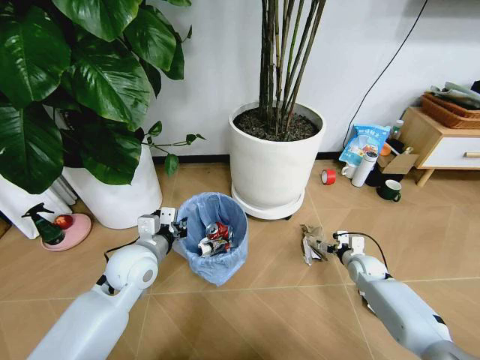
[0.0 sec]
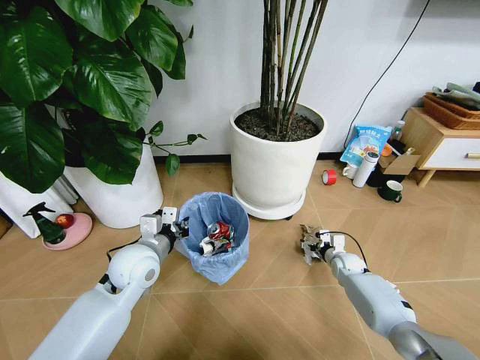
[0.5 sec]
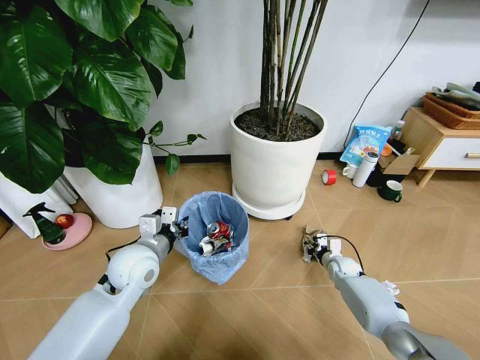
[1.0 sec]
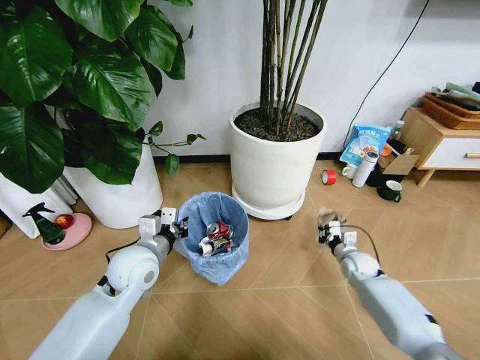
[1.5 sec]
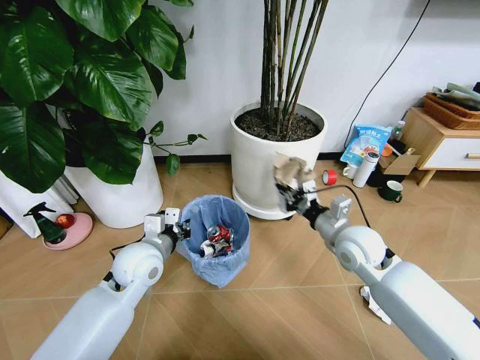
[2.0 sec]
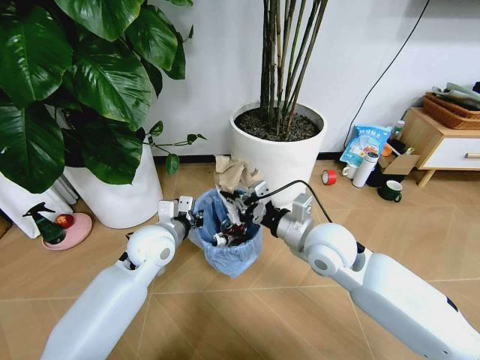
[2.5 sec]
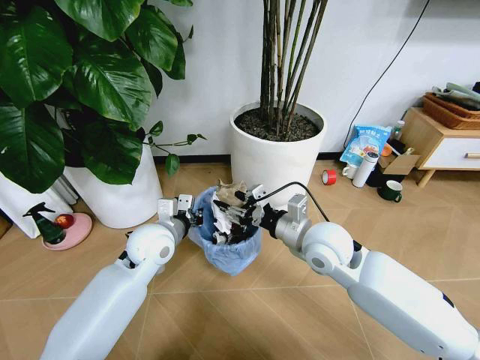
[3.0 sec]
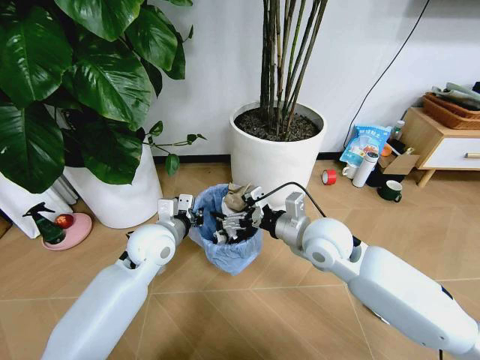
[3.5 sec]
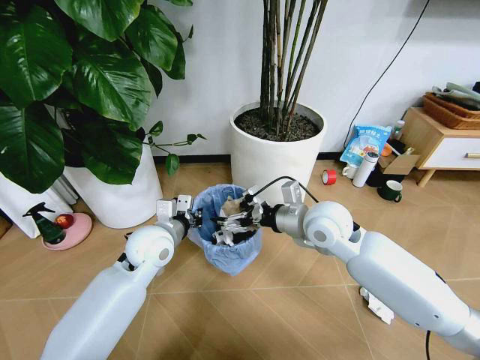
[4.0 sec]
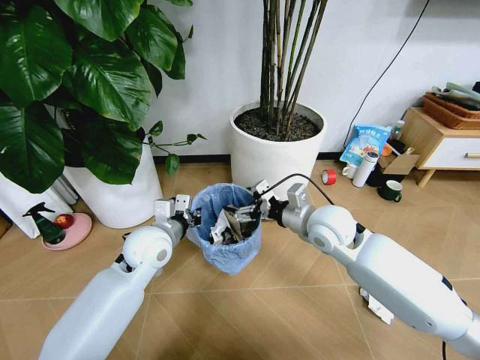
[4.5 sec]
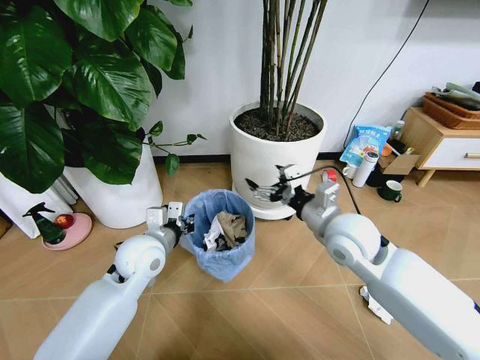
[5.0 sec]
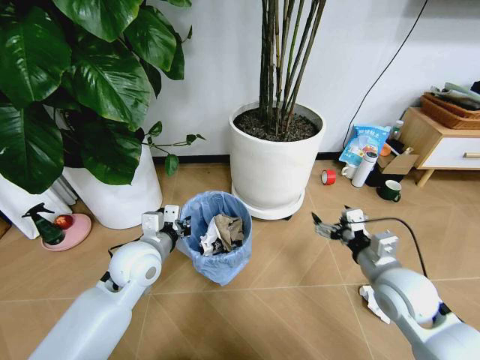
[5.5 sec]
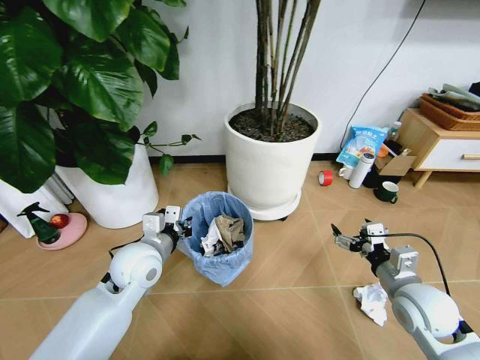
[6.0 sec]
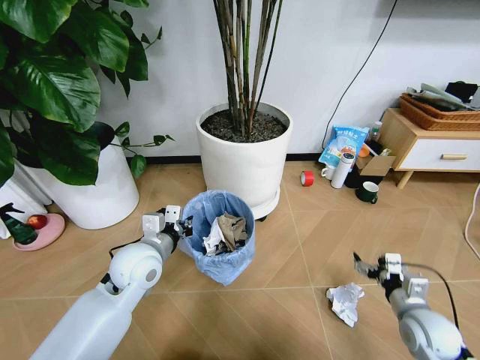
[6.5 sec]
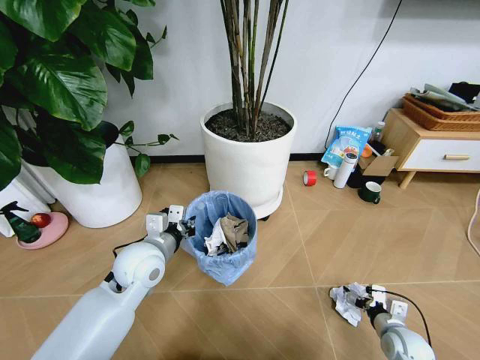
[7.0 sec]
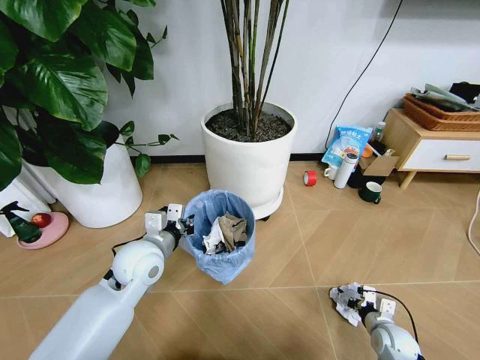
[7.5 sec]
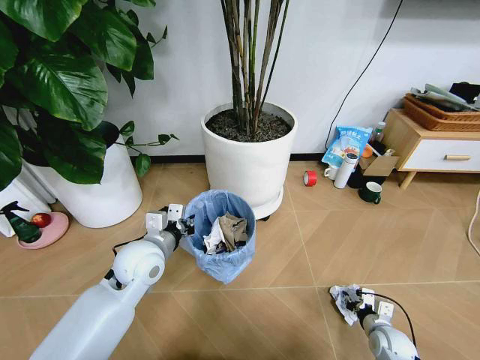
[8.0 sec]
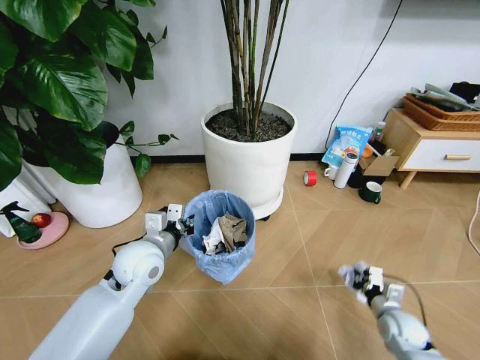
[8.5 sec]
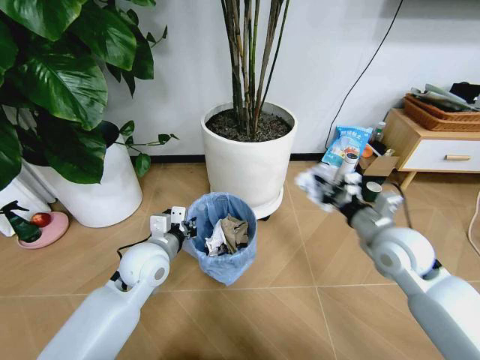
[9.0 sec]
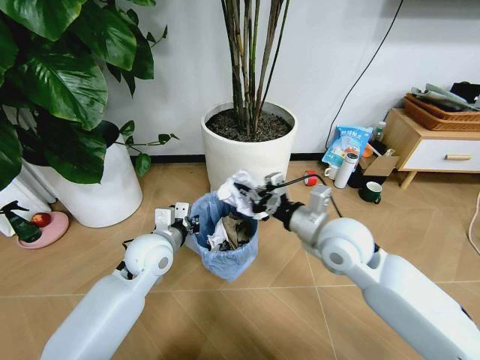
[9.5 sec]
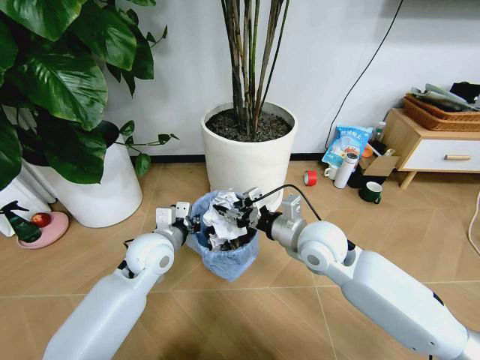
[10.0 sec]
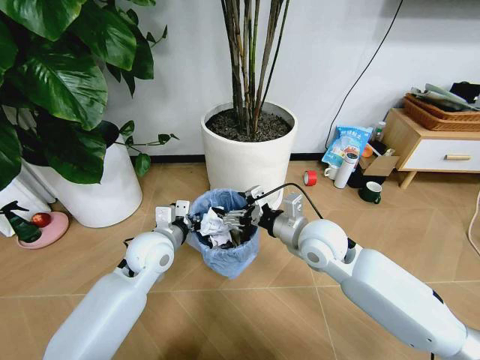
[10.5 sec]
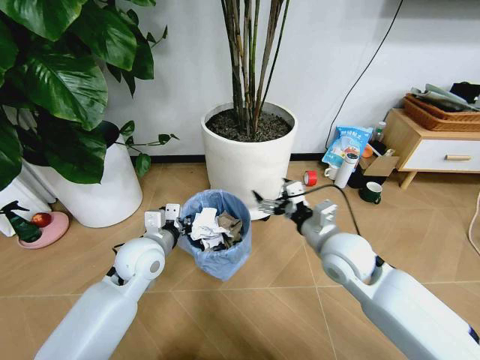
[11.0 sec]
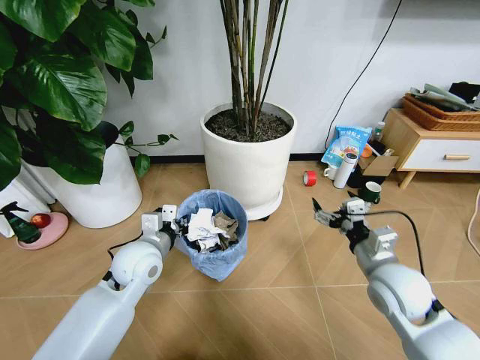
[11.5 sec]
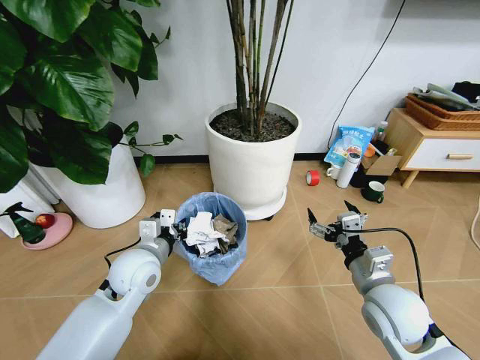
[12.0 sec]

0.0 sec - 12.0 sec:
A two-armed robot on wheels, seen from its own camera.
Task of the whole recording: Pick up the trash bin and place the garbage on the floor into it.
0.0 sec - 2.0 sec: The right gripper travels upward and to the left by approximately 25 cm, and closes its fingers.
2.0 sec - 4.0 sec: The right gripper goes roughly 10 cm to the left and upward, and opens up.
4.0 sec - 6.0 sec: The right gripper goes approximately 25 cm to the right, backward and downward.
6.0 sec - 8.0 sec: The right gripper shifts approximately 25 cm downward, and closes its fingers.
8.0 sec - 10.0 sec: The right gripper travels upward and to the left by roughly 40 cm.
10.0 sec - 12.0 sec: The right gripper travels backward and to the right by some 15 cm, and opens up.

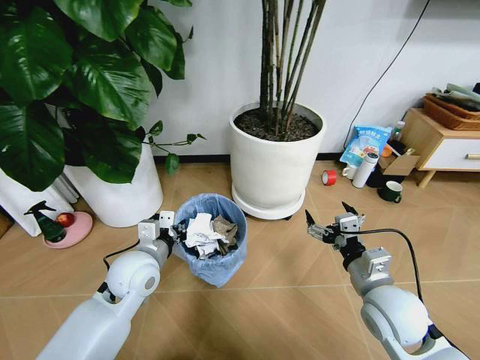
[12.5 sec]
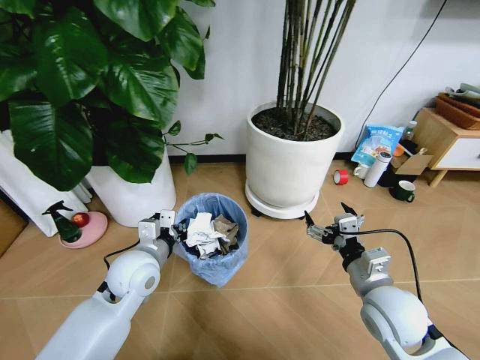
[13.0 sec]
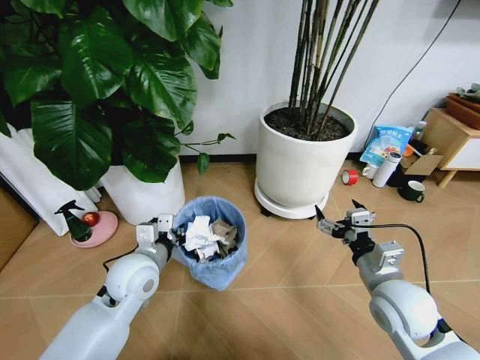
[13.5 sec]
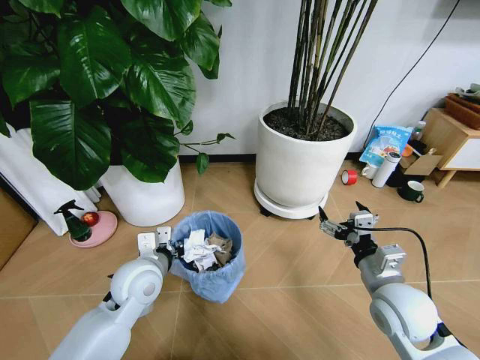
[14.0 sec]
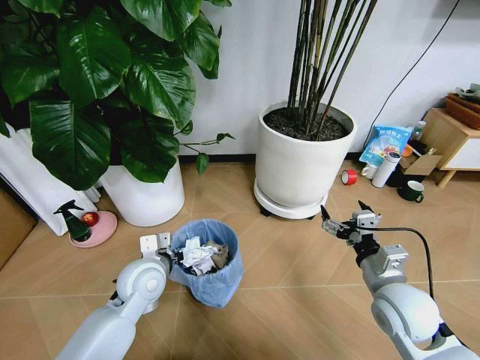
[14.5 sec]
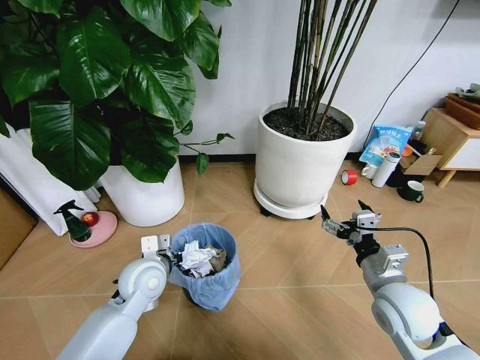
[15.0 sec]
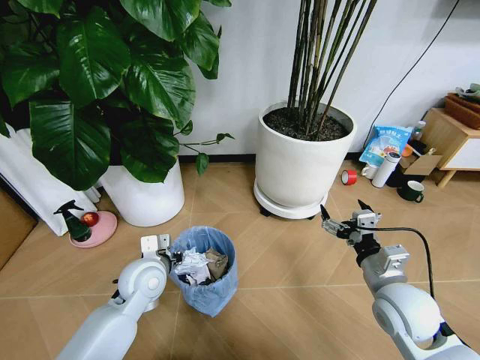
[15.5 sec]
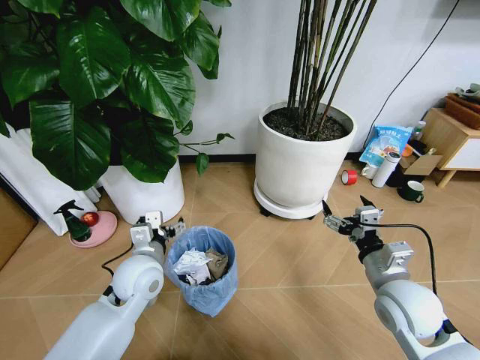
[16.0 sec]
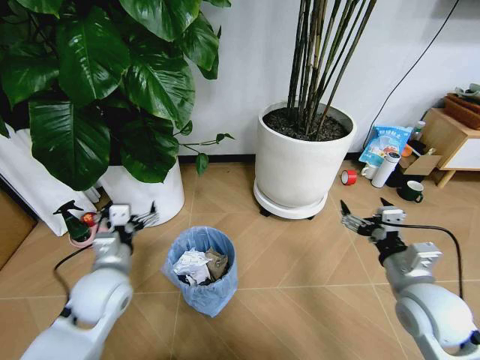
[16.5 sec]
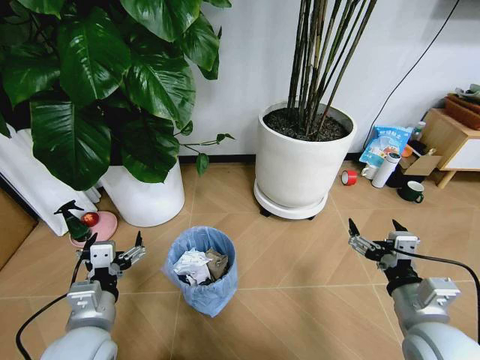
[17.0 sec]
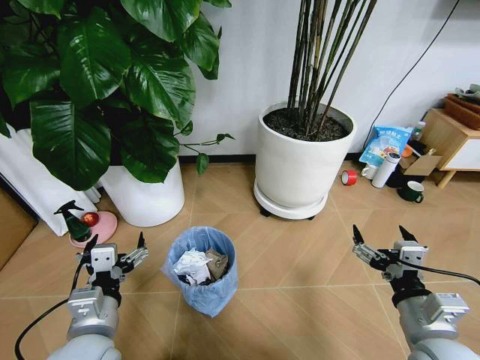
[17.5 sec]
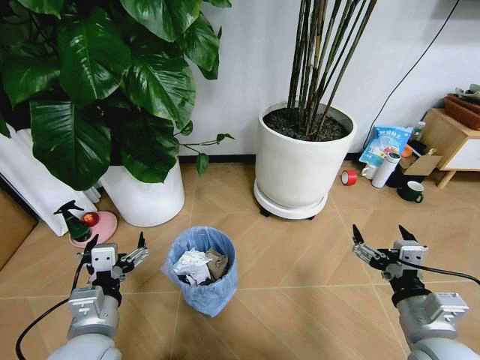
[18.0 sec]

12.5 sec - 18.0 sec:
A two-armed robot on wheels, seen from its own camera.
Task of the whole recording: Pick up the trash bin and place the garbage on the floor into it.
14.5 sec - 16.0 sec: The left gripper opens up.
16.0 sec - 18.0 sec: The left gripper heads backward, covering about 15 cm. Meanwhile the right gripper shifts some 10 cm backward.

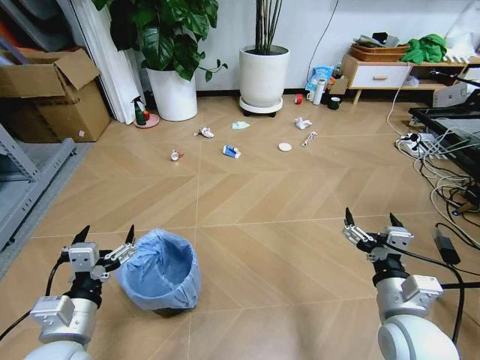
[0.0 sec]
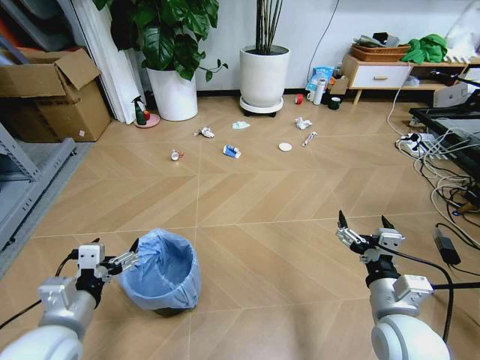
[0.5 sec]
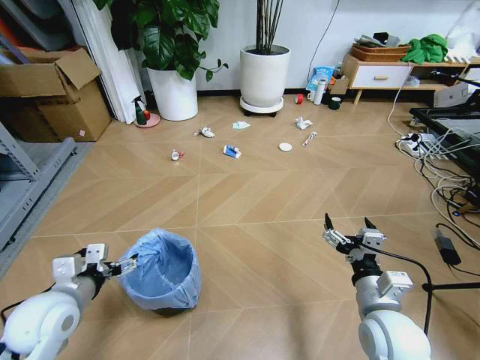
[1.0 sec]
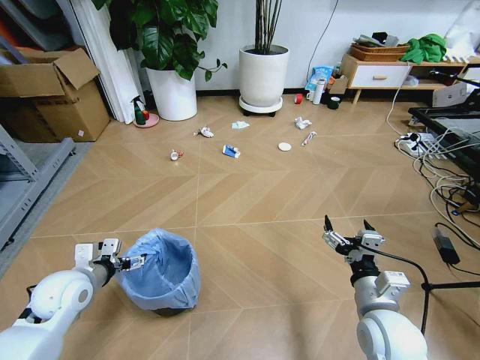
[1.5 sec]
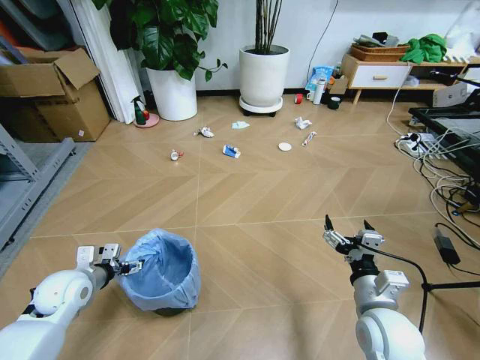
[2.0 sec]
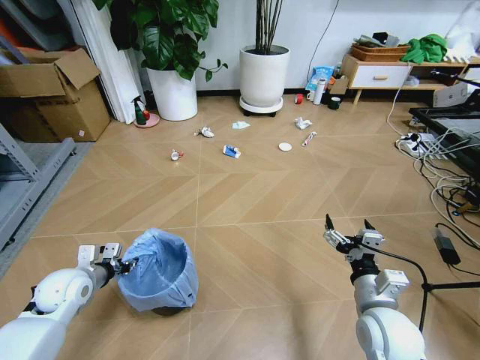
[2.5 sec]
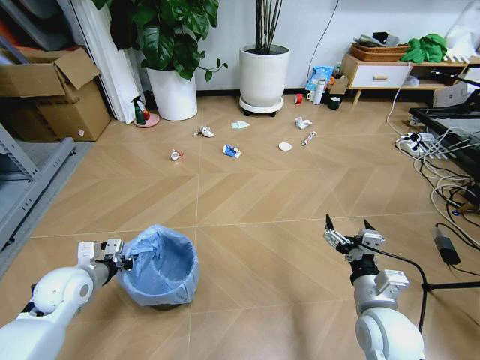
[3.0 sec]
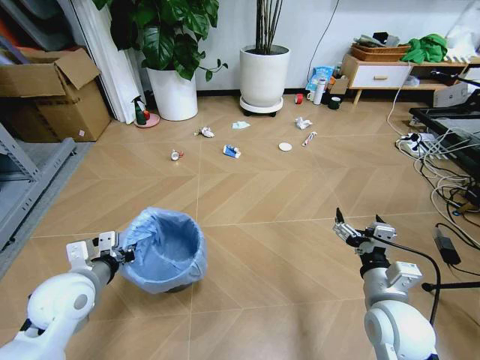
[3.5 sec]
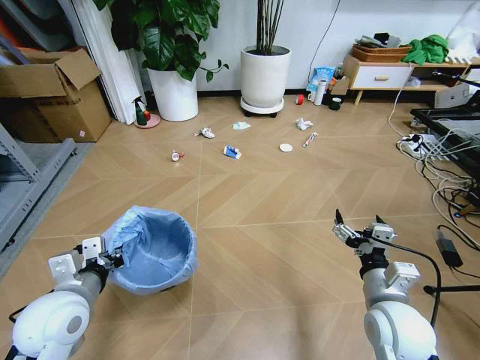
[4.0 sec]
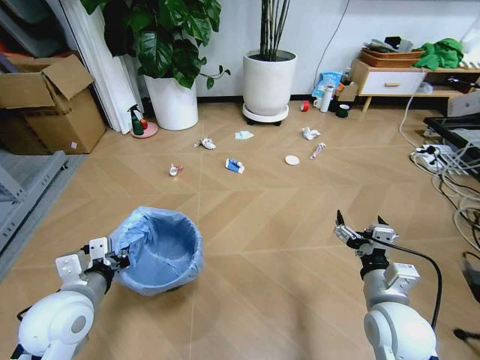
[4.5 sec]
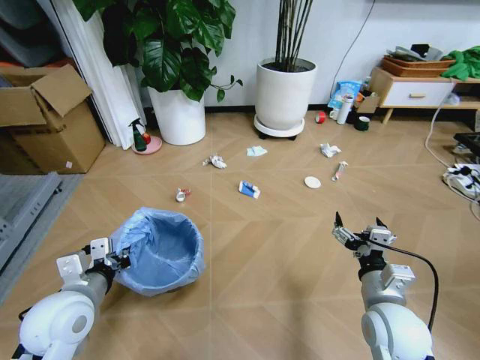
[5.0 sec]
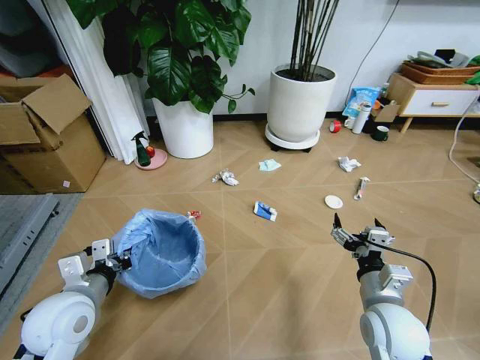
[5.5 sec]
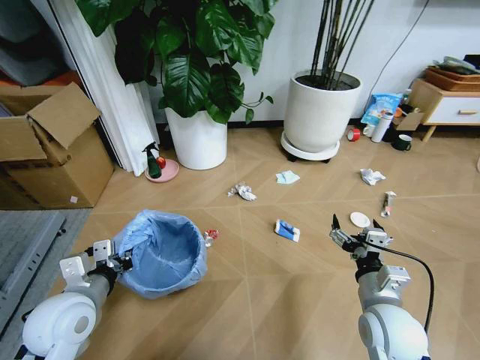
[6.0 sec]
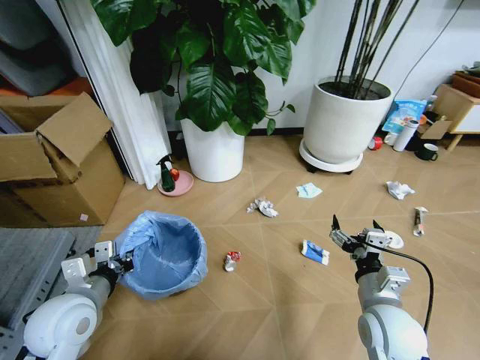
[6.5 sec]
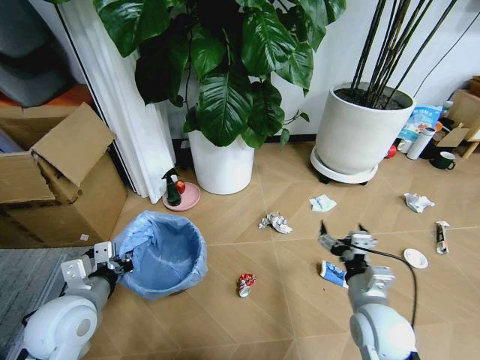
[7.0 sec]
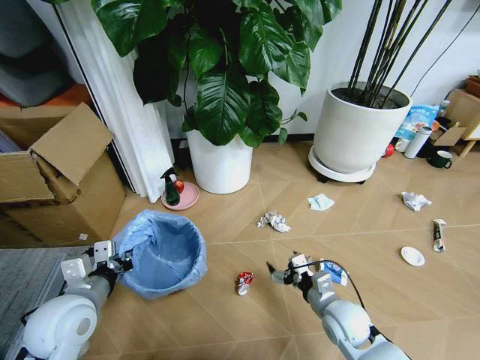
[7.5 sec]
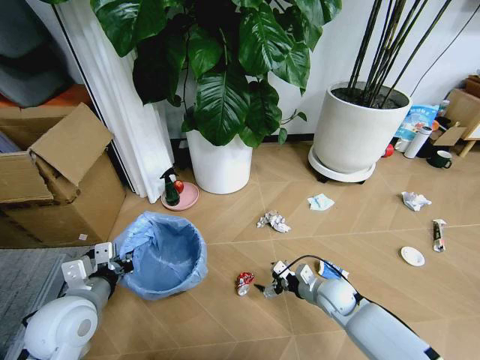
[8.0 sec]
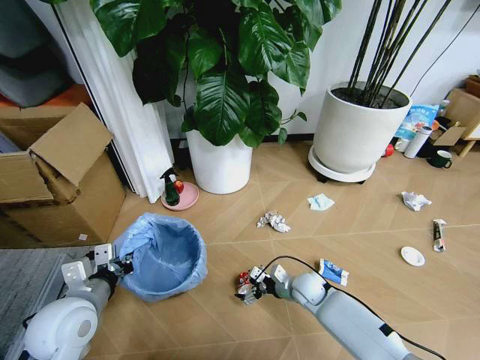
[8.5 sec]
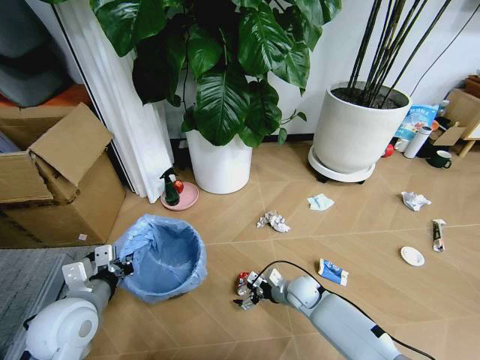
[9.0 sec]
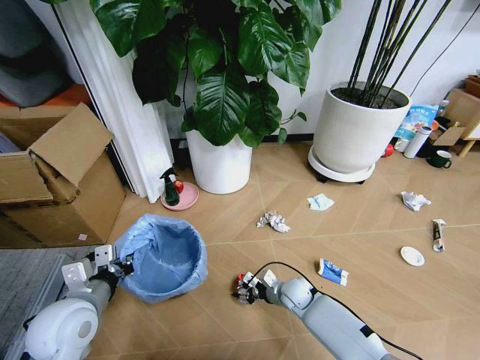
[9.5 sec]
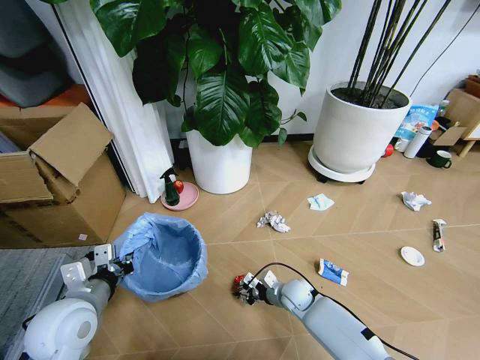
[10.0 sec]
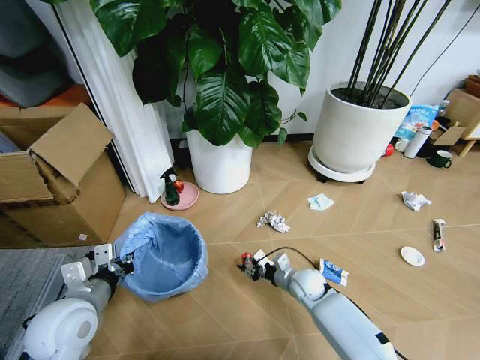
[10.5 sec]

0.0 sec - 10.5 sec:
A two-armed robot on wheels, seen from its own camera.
Task of the whole recording: Pick up the trash bin and place the garbage on the floor into it.
2.0 sec - 4.0 sec: The left gripper is displaced upward, backward and to the right by some 15 cm, and closes.
6.5 sec - 8.5 sec: The right gripper shifts approximately 25 cm downward and forward.
8.5 sec - 10.5 sec: The right gripper closes.
